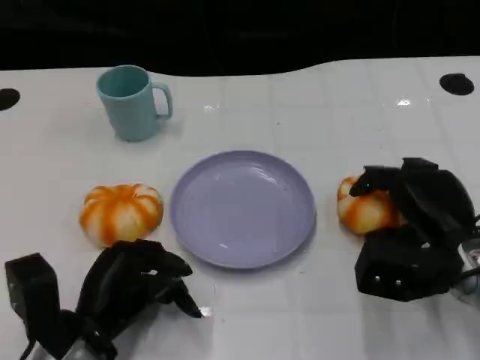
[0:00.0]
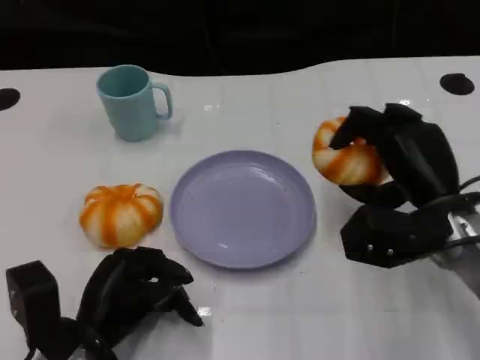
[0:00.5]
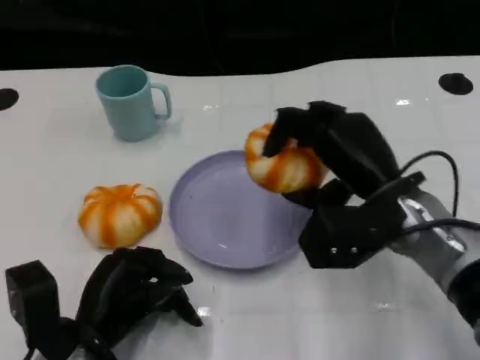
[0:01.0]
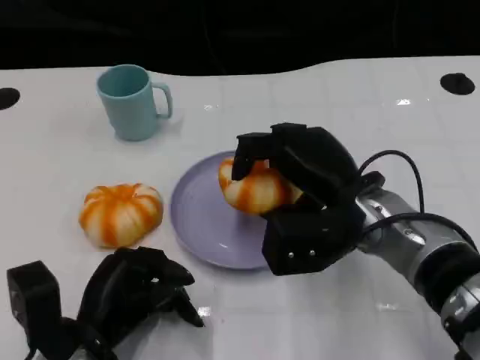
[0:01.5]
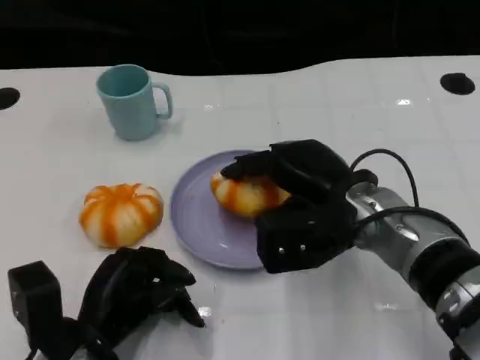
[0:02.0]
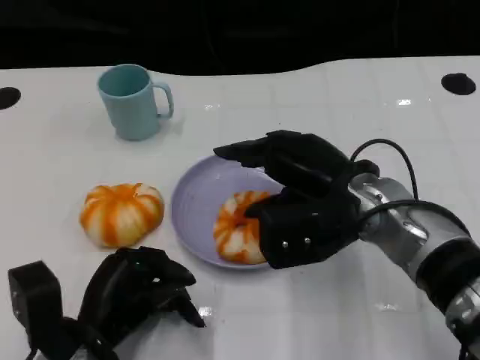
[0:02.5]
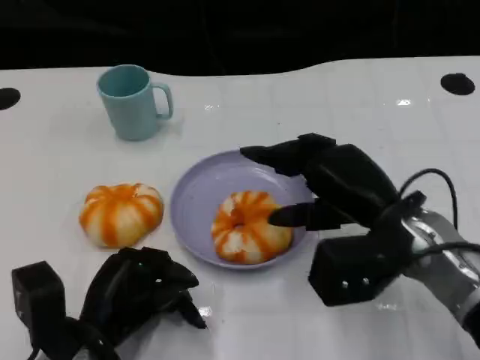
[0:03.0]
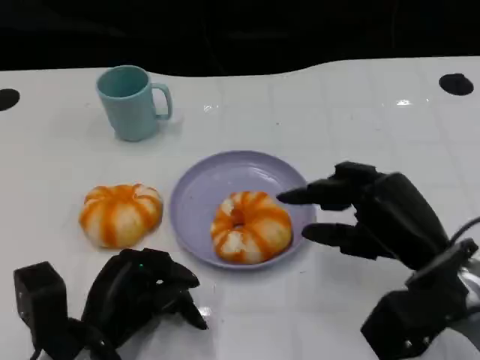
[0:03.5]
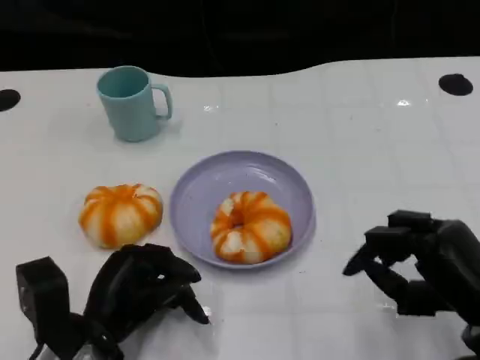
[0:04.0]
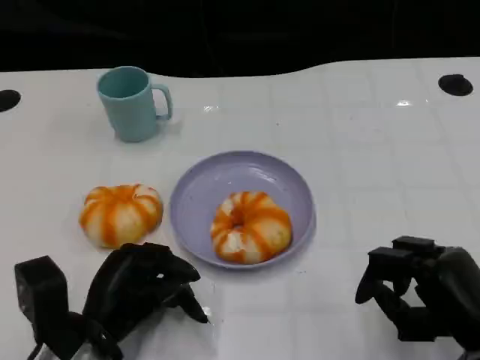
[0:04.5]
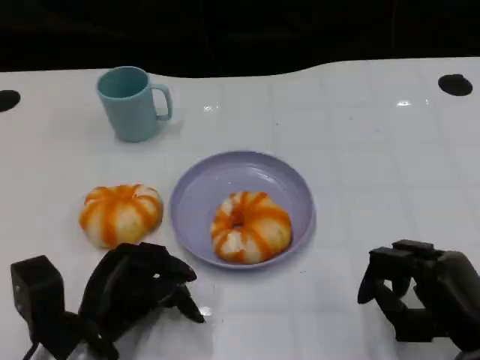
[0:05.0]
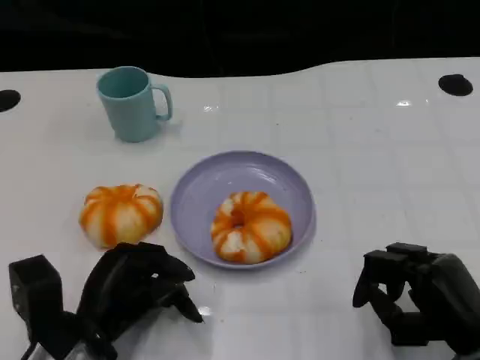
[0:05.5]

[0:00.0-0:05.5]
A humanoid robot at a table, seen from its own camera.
Task of the whole recording: Grasp the bread from the table and place it into the plate.
0:00.0 to 0:02.0: The right hand shifts approximately 10 cm to the left and upward.
0:02.0 to 0:03.5: The right hand shifts roughly 10 cm to the right and backward.
0:03.5 to 0:05.5: The right hand shifts about 10 cm downward and backward.
